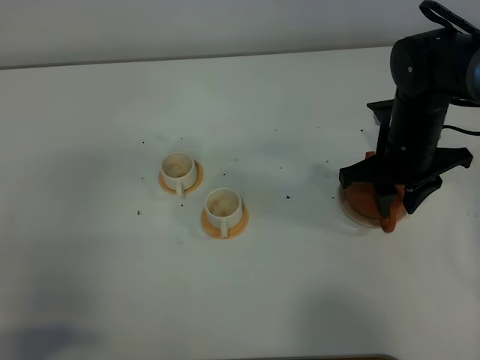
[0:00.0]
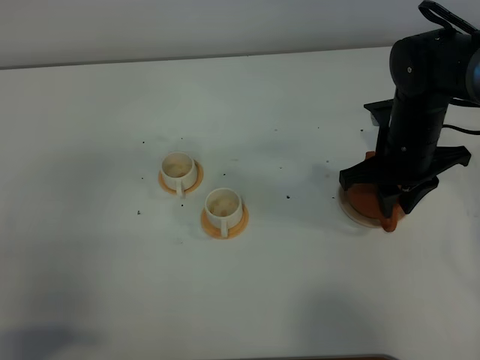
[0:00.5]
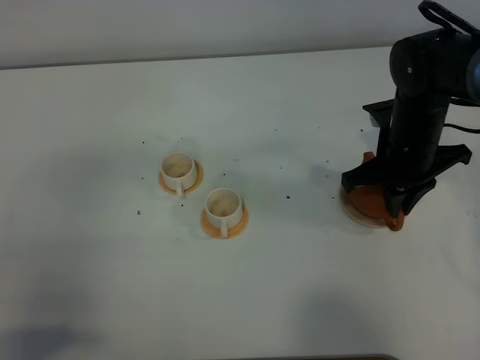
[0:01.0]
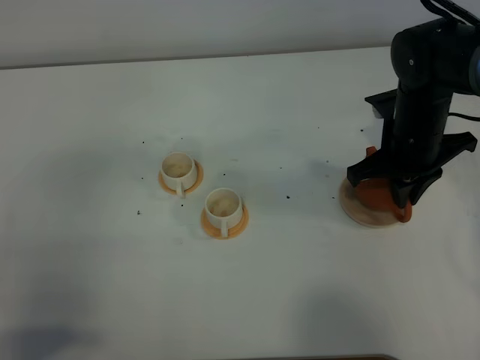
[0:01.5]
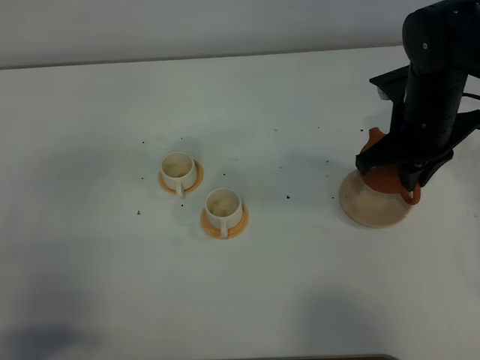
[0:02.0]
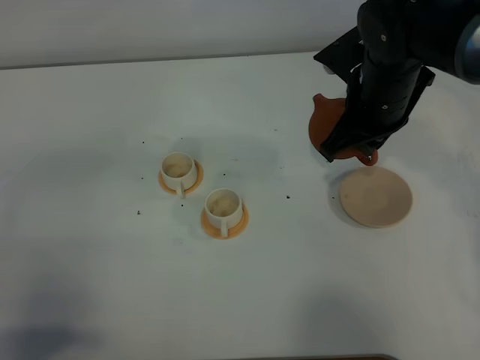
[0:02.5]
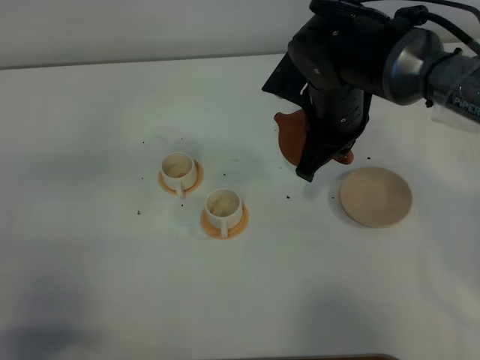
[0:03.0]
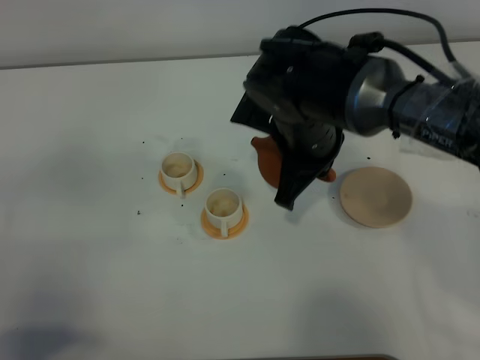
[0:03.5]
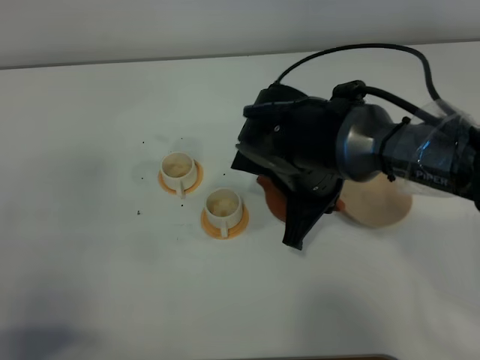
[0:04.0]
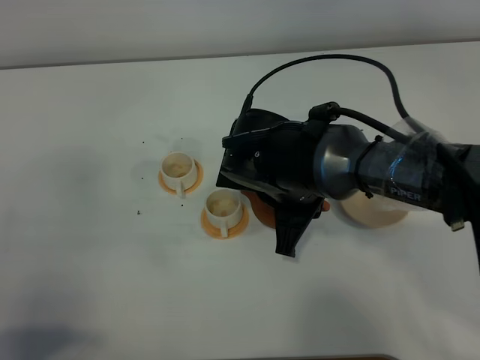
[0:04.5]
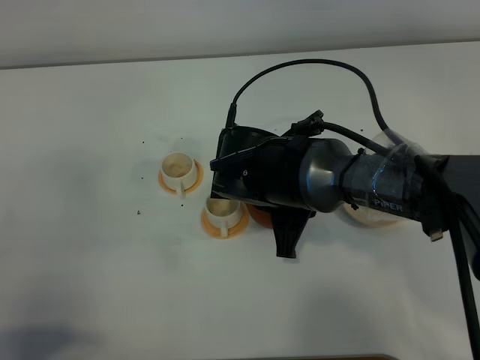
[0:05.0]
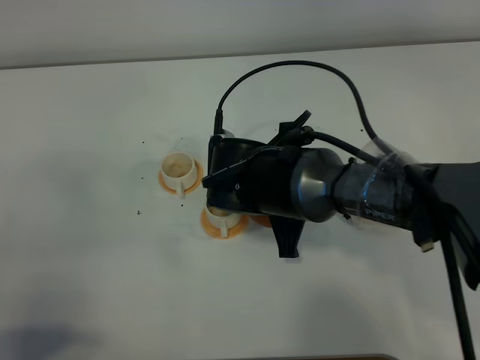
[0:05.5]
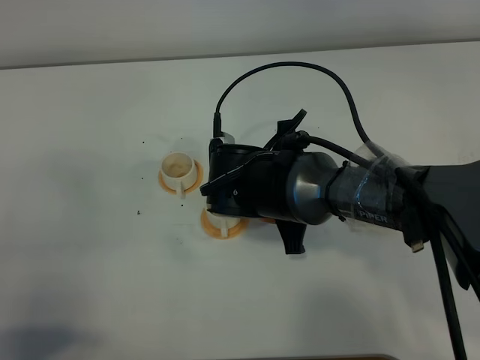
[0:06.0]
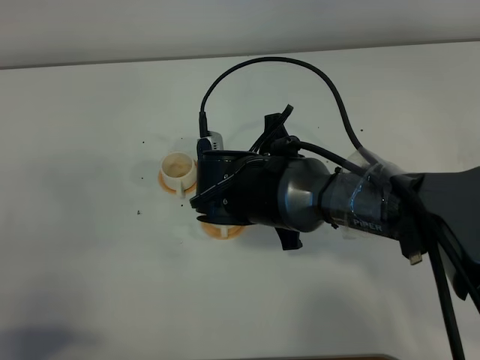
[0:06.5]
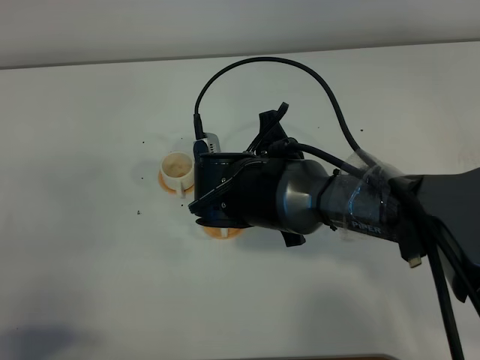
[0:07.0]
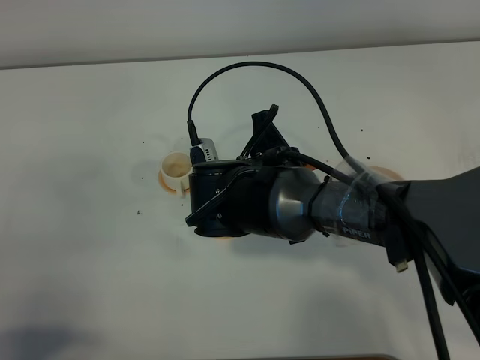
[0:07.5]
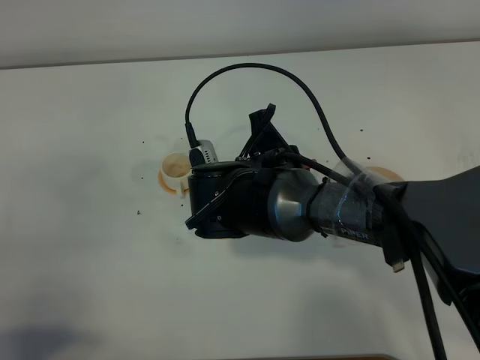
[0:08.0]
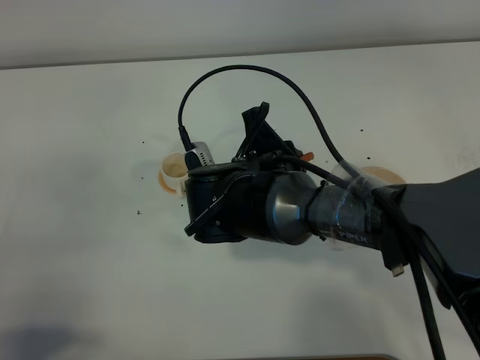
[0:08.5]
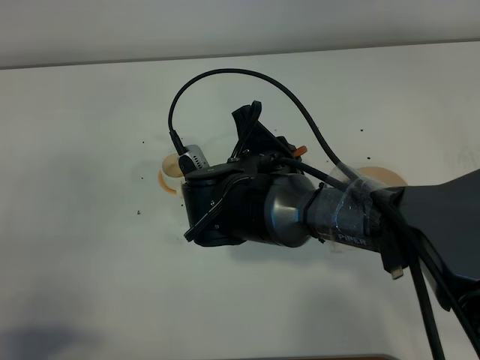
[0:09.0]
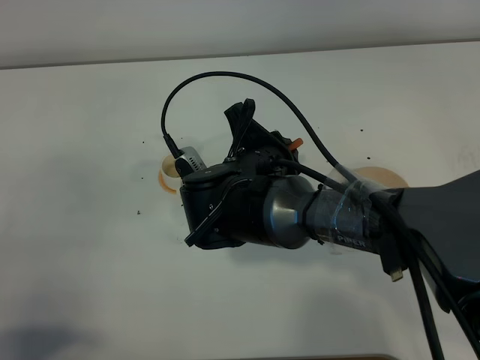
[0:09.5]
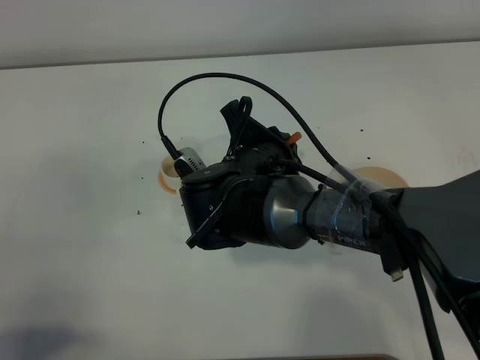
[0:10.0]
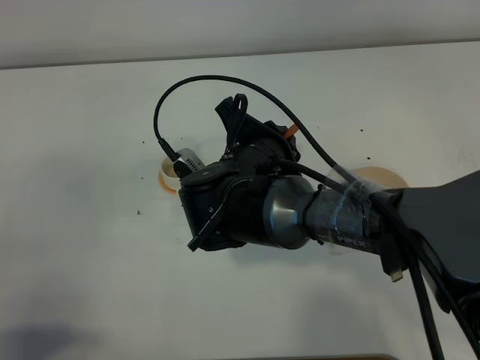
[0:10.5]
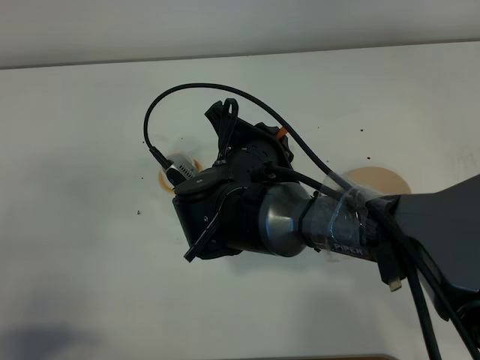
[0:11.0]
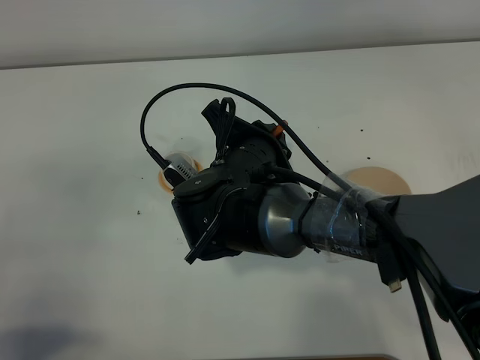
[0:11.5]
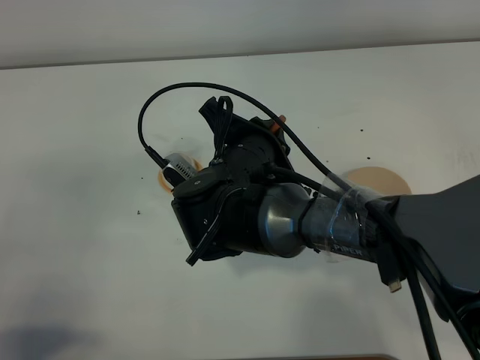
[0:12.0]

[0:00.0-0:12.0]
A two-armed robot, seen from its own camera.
Task of the whole recording: grasp the brown teapot and pour the tea into the two white teacups one by one, put the brown teapot back in its original place.
0:00.0 to 0:02.0: The right gripper closes up.
0:02.0 to 0:04.0: The right gripper shifts roughly 15 cm to the left and backward.
0:06.0 to 0:08.0: There are only small adjustments of the grippers.
0:08.0 to 0:10.0: The grippers stay close to where they were, moving slightly.
0:10.0 to 0:12.0: The grippers make only small movements.

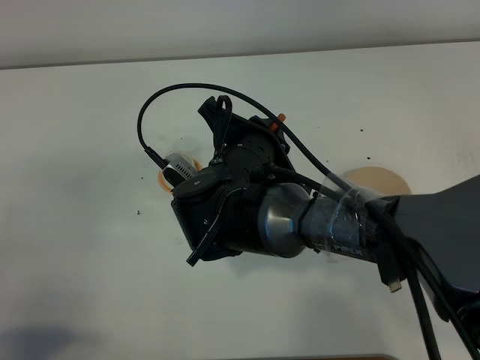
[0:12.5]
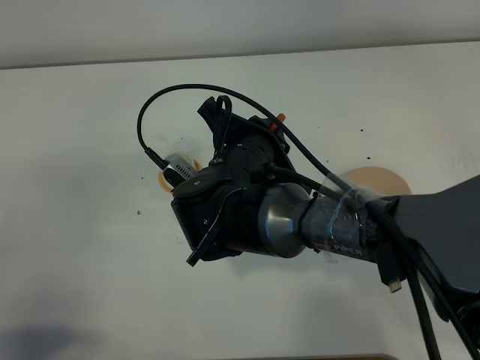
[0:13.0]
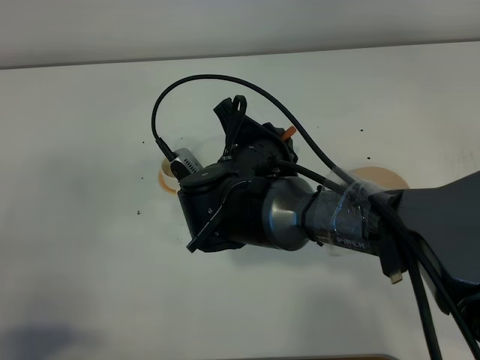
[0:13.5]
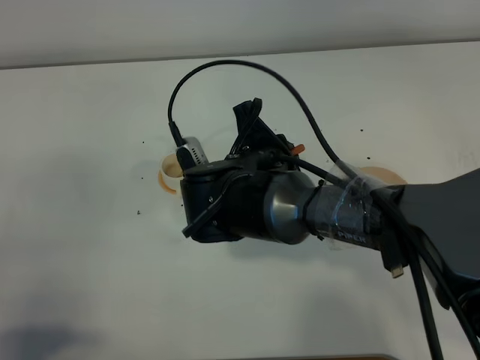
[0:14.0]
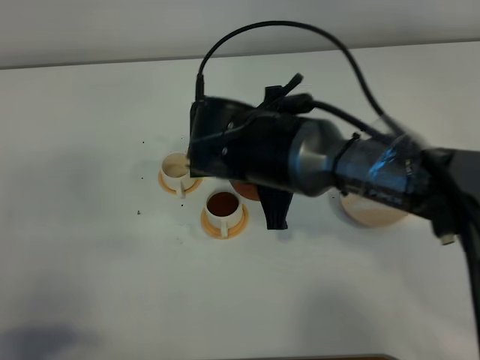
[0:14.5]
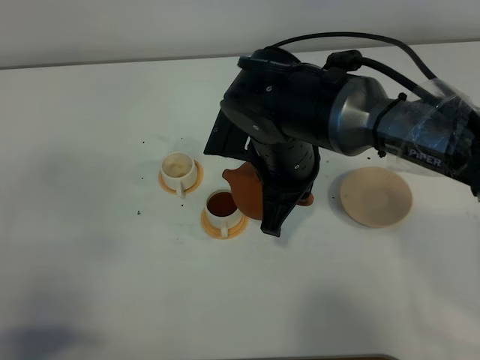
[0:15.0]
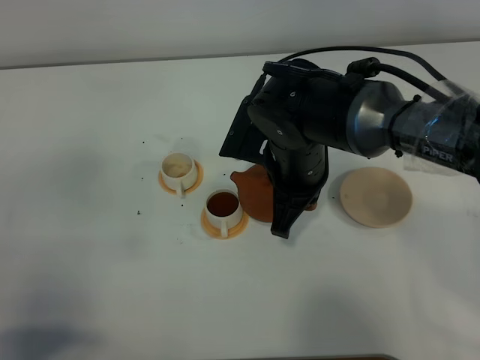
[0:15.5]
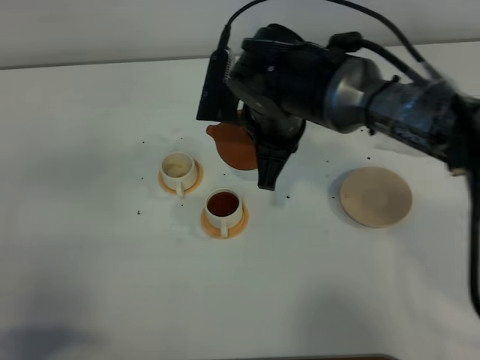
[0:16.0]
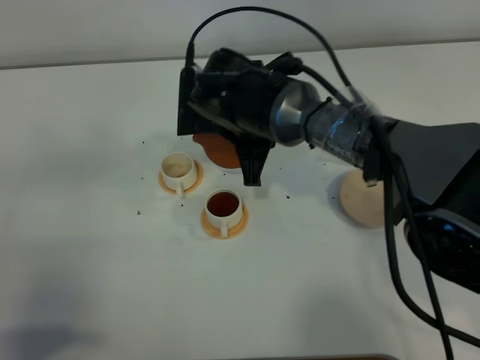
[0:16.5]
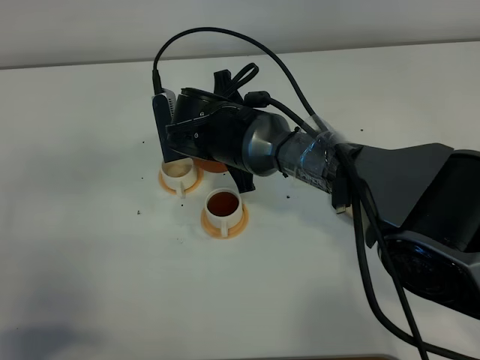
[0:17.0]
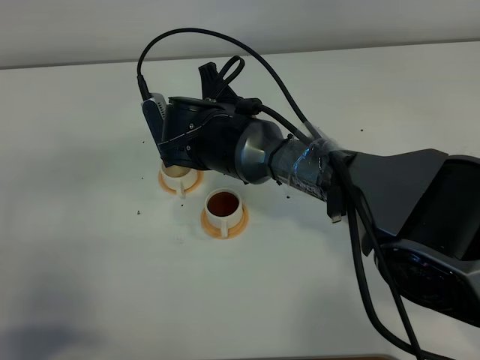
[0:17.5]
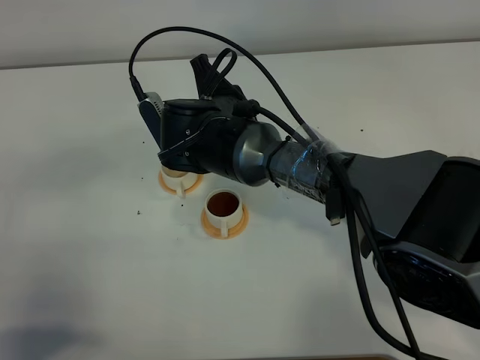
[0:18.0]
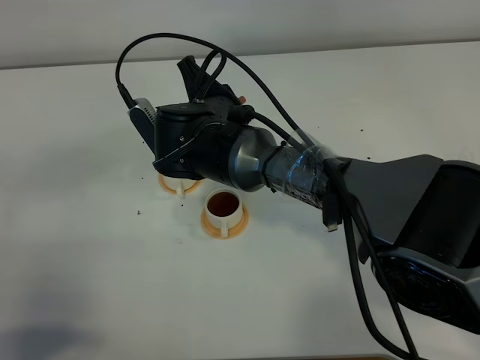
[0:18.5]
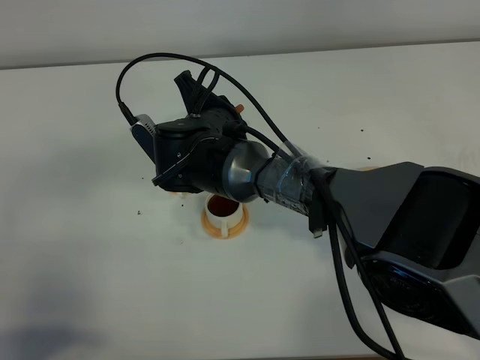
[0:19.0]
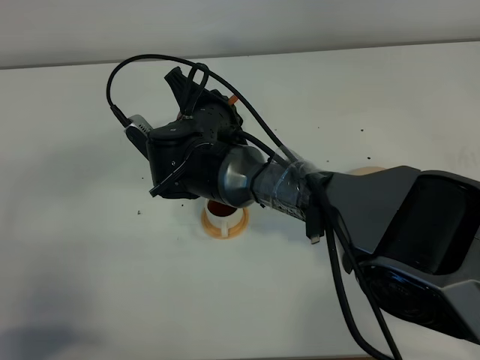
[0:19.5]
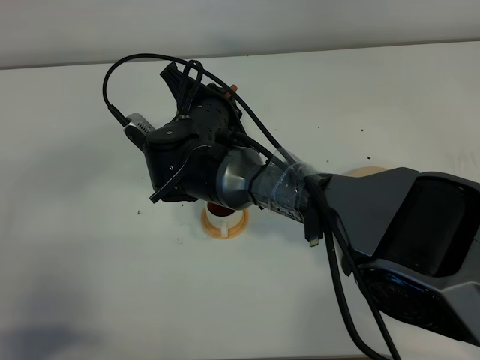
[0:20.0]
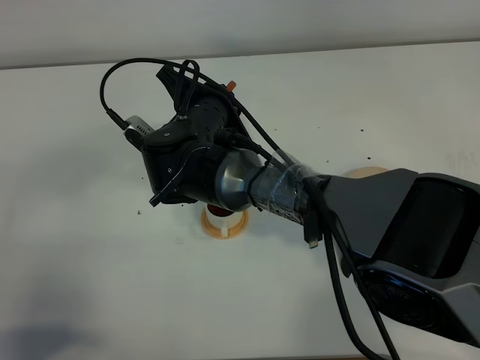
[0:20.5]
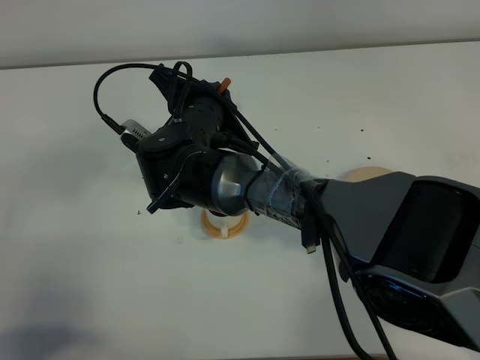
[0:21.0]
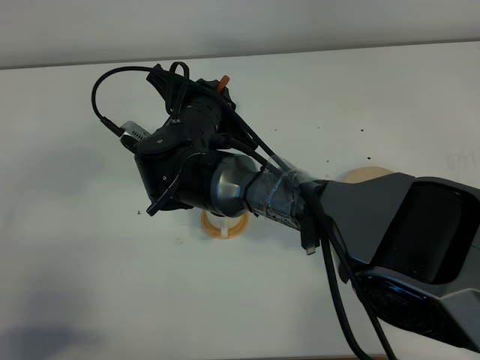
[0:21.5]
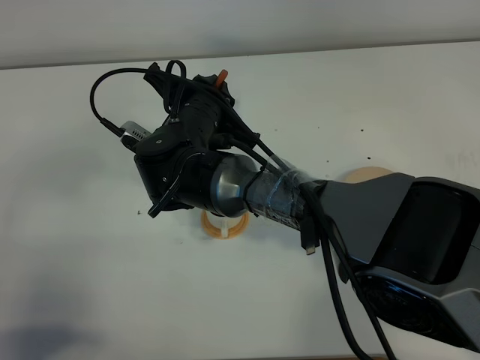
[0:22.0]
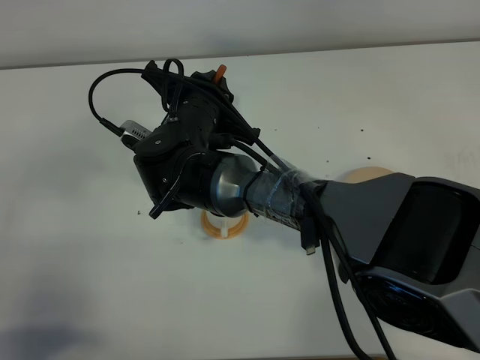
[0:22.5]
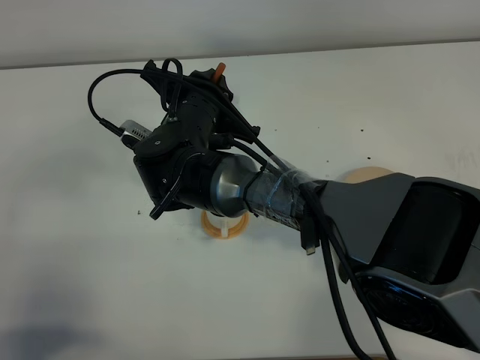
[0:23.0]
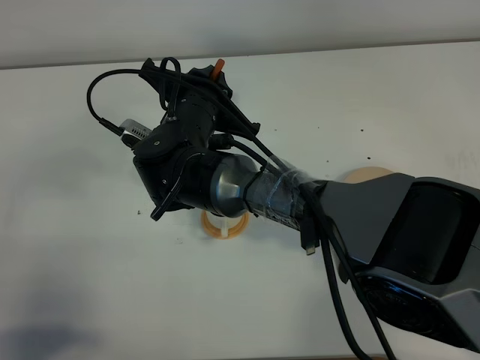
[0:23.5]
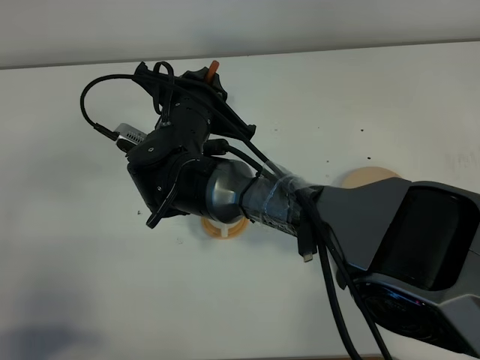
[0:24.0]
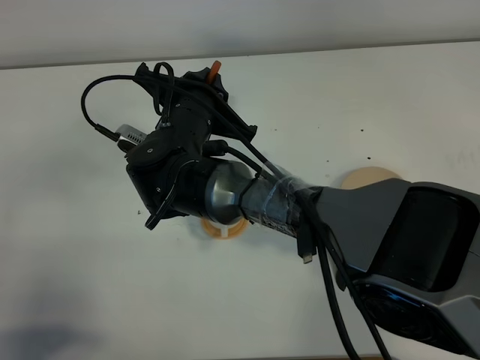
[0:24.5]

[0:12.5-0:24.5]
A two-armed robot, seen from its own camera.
Task of the whole recording: grasp the brown teapot and pour the tea into the two white teacups one by one, put the brown teapot back in its original place.
0:14.5 to 0:16.5: The right gripper is displaced forward by approximately 10 cm.
0:18.5 to 0:20.5: The grippers stay close to where they were, moving slightly.
0:20.5 to 0:22.5: There are only small adjustments of the grippers.
0:22.5 to 0:24.5: Neither gripper changes place.

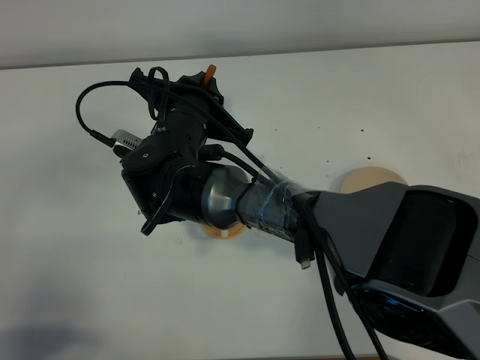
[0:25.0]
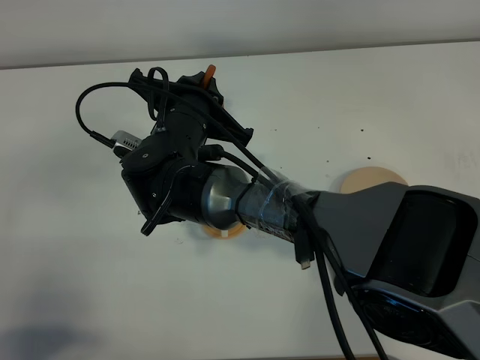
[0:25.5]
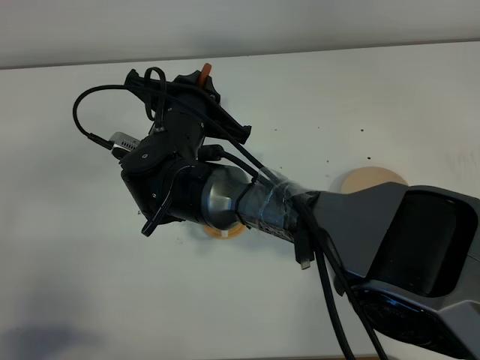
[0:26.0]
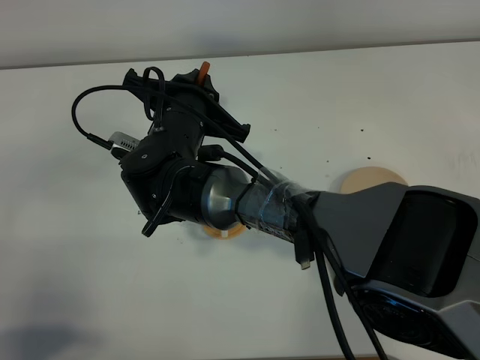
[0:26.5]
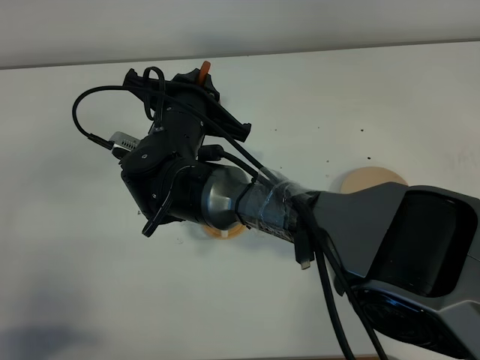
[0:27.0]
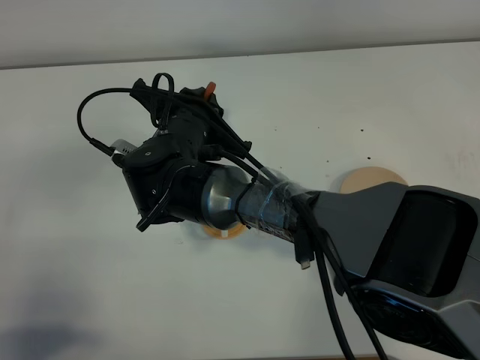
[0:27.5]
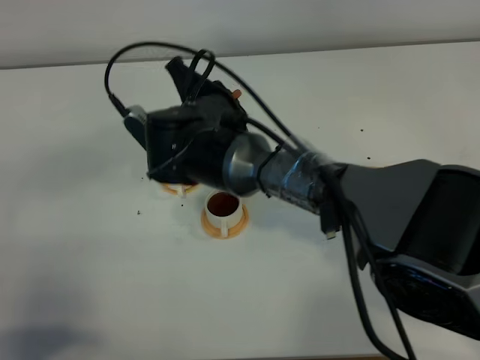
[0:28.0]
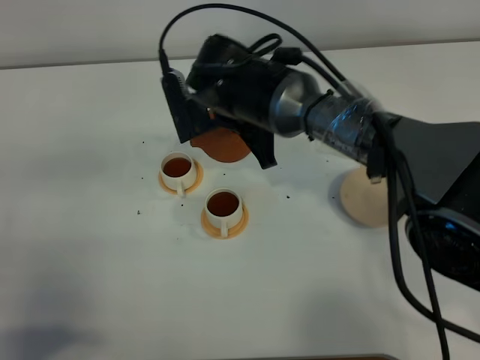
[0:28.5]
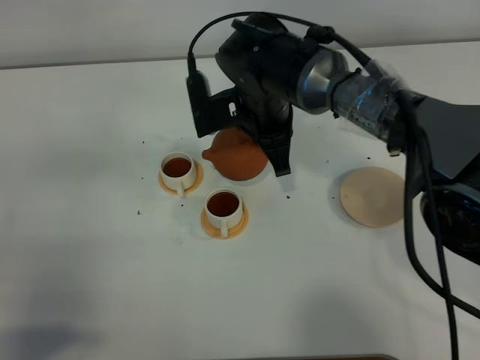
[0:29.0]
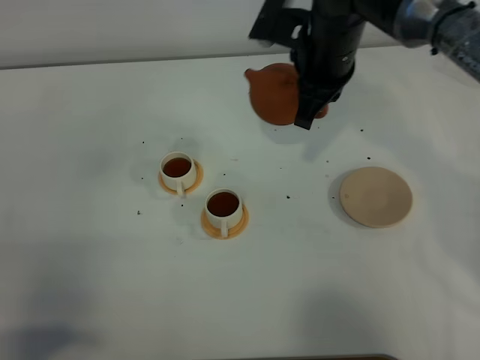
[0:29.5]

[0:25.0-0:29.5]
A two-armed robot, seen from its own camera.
Task of the whole recording: grasp the brown teapot and pour the tea into the two white teacups one by one, put the brown teapot back in its original place.
Step, 0:25.0 to 0:27.5: Pour tea into the teacup with the right gripper.
0:25.0 to 0:27.0: Both grippers stay about where they are.
0:27.0 to 0:29.5: The right gripper heads to the right, forward and upward, covering roughly 20 cm.
